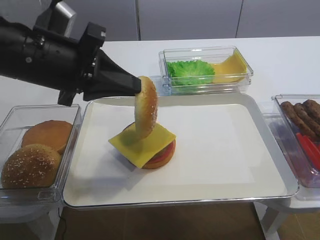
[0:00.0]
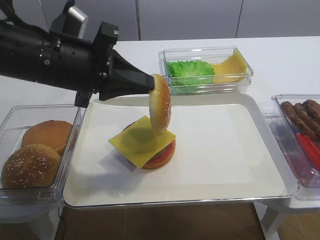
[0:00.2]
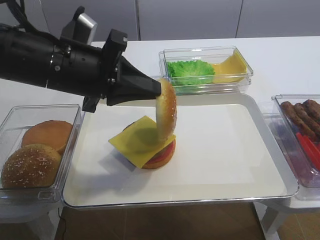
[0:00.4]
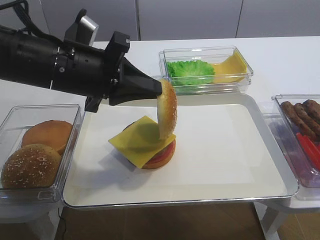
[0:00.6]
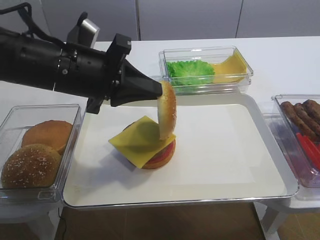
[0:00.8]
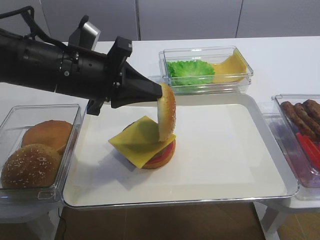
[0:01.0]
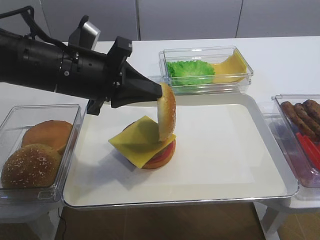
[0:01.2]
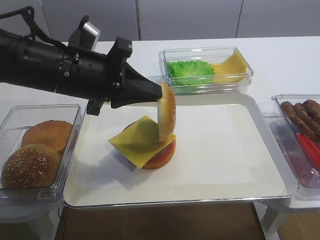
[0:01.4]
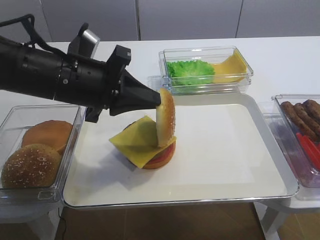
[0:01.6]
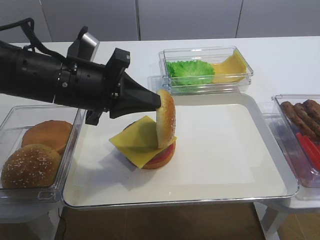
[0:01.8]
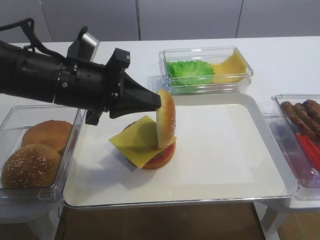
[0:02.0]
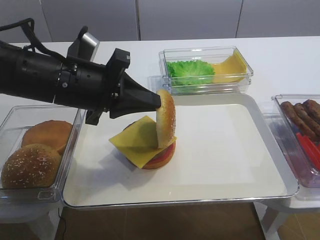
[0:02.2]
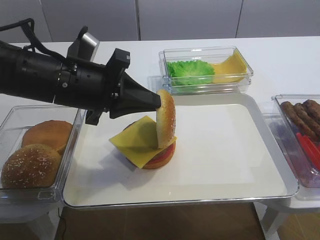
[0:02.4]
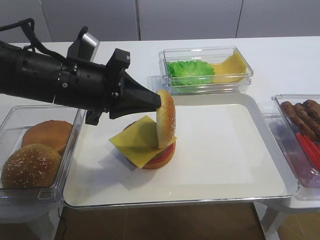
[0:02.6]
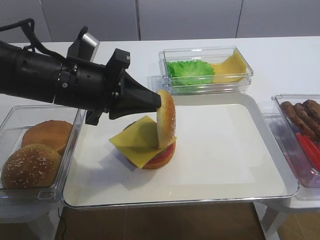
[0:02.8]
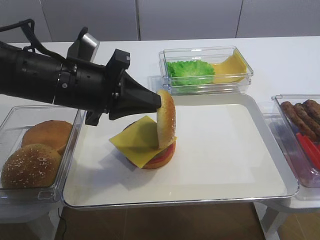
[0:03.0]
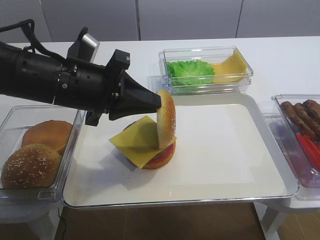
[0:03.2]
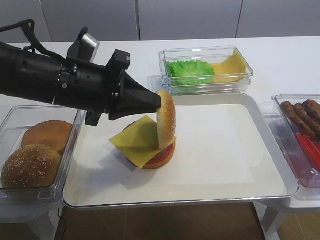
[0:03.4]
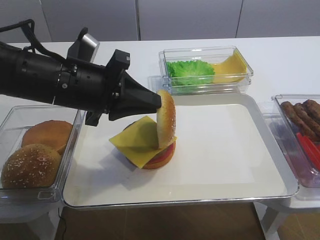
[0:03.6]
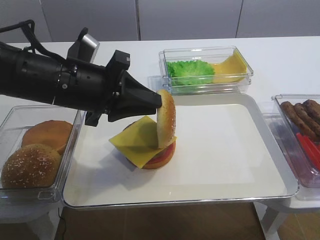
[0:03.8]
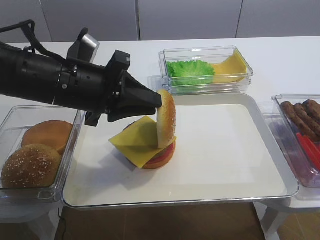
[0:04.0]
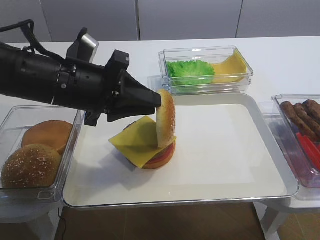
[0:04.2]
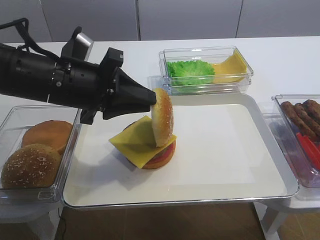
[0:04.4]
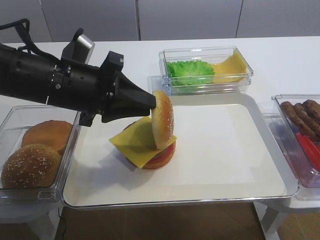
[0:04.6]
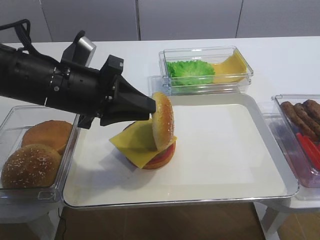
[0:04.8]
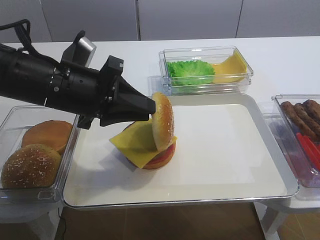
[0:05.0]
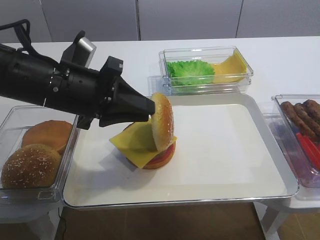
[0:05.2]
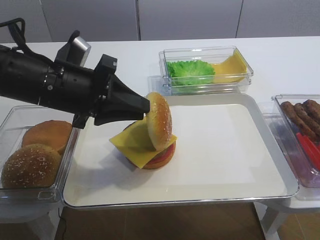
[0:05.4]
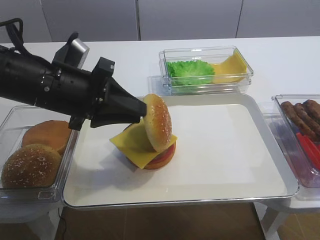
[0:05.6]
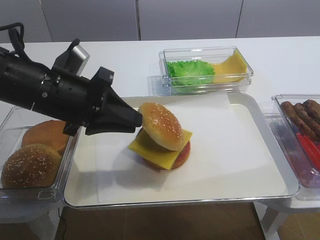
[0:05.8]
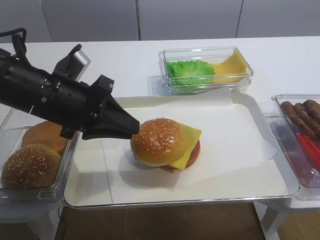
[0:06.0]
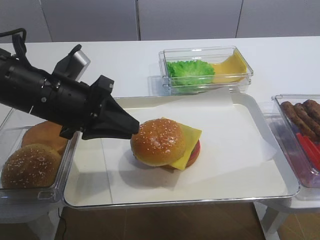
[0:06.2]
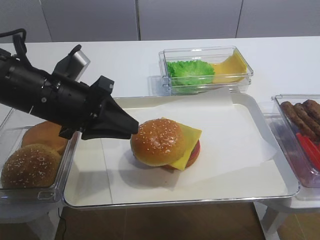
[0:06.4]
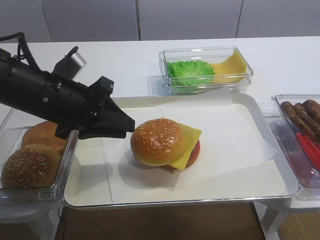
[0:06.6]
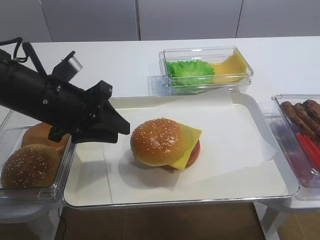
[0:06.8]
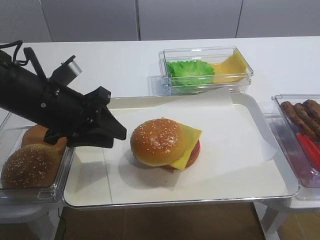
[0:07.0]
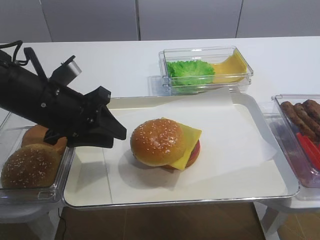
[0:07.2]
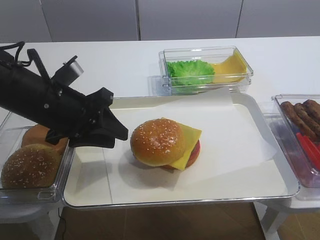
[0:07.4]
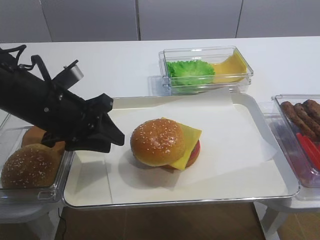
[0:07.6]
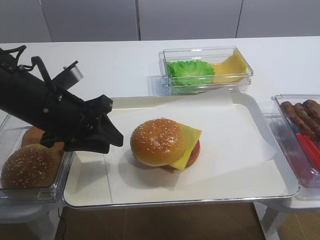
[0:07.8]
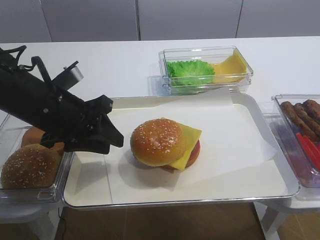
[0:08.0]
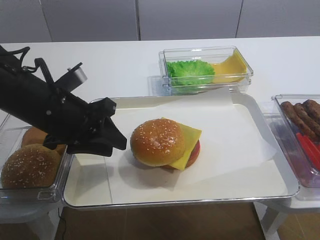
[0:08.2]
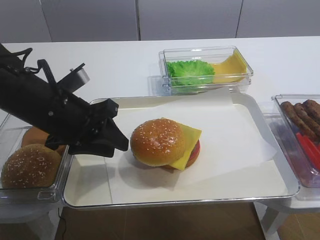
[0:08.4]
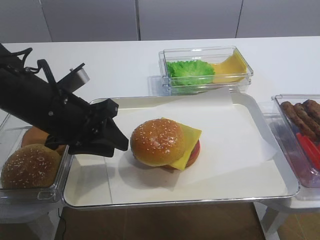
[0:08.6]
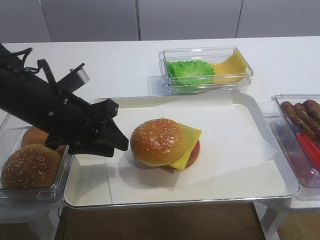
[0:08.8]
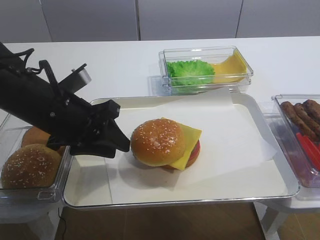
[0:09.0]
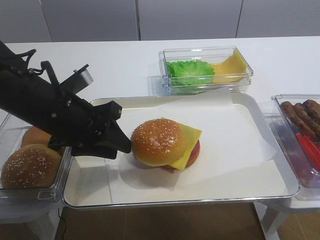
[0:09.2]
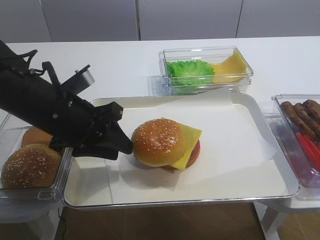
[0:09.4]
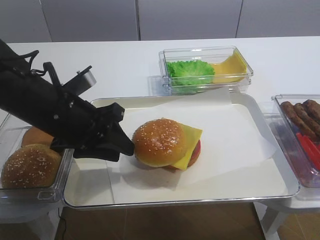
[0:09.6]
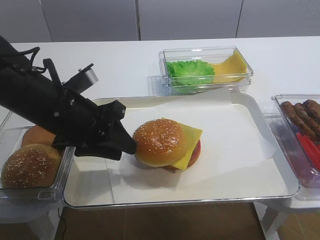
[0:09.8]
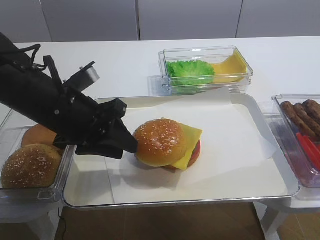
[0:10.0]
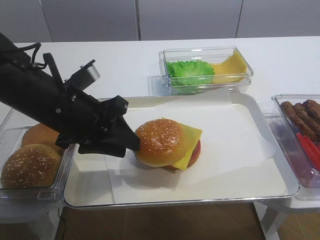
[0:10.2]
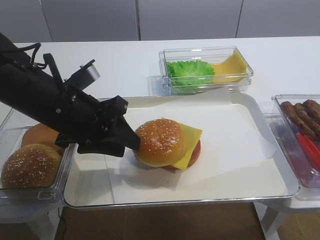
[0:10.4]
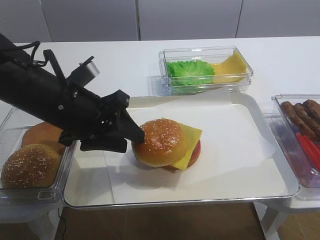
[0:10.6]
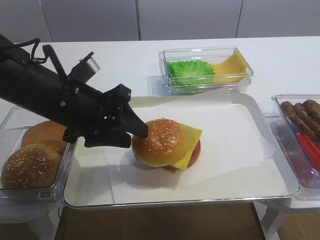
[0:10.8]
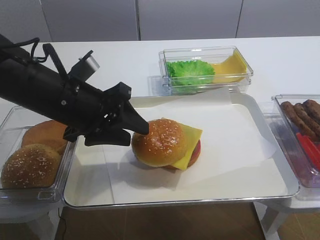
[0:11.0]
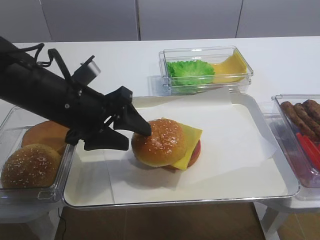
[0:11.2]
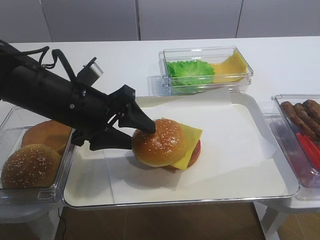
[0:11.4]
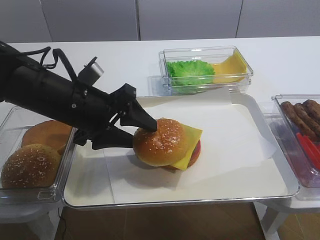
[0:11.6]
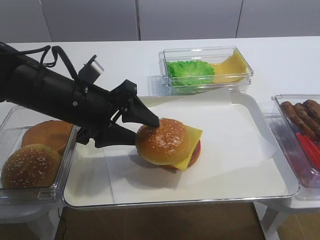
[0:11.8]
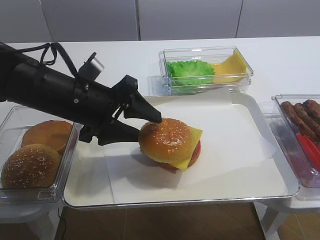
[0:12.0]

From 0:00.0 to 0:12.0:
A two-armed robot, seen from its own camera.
From 0:00.0 to 0:01.6: The grippers make only small movements.
From 0:01.6 to 0:04.4: Neither gripper changes place.
From 0:04.4 to 0:06.0: The grippers make only small movements.
From 0:06.0 to 0:07.6: The grippers move only a little.
From 0:07.6 to 0:09.0: The two grippers keep their place.
From 0:09.0 to 0:10.4: The grippers stay close to where they were, moving slightly.
From 0:10.4 to 0:12.0: The left gripper opens up.

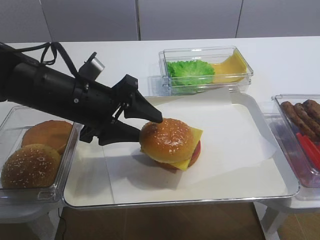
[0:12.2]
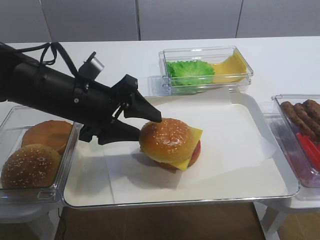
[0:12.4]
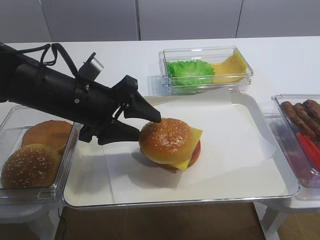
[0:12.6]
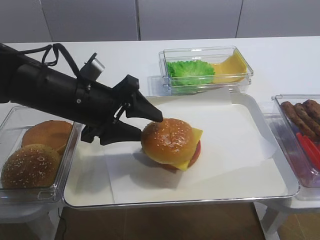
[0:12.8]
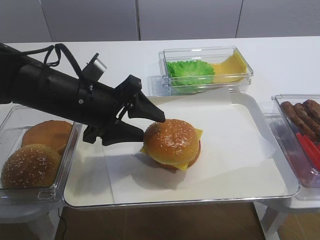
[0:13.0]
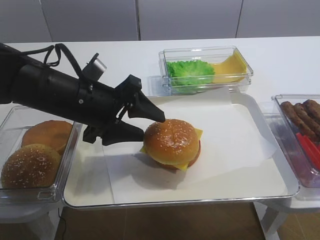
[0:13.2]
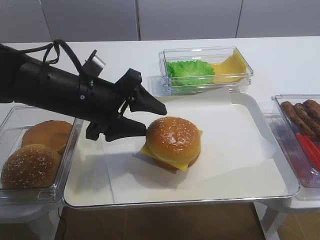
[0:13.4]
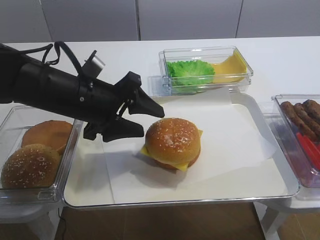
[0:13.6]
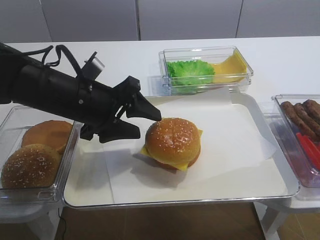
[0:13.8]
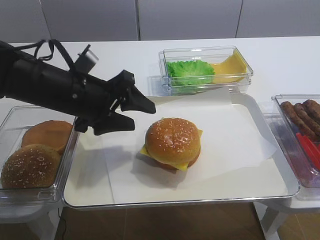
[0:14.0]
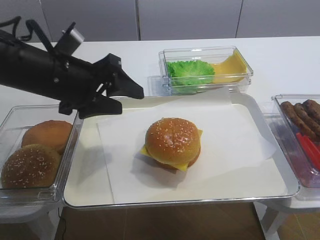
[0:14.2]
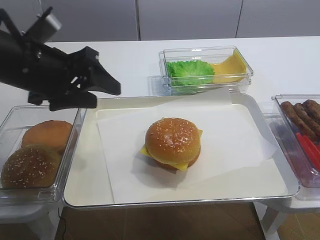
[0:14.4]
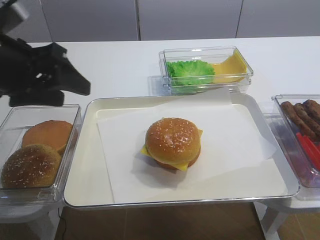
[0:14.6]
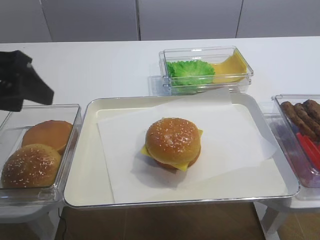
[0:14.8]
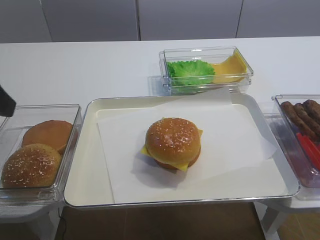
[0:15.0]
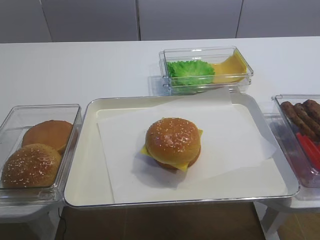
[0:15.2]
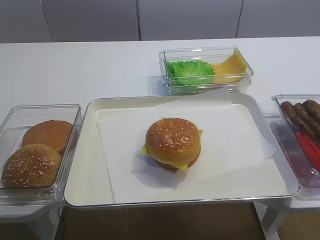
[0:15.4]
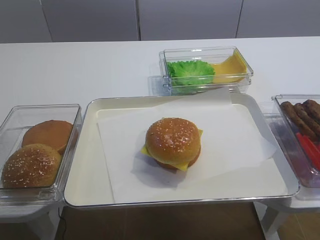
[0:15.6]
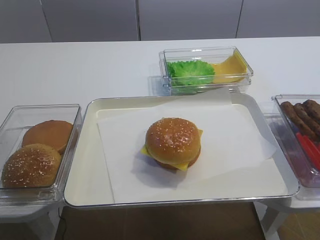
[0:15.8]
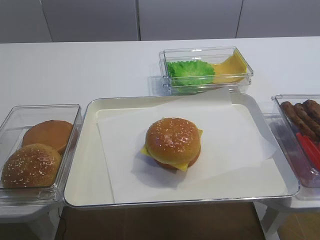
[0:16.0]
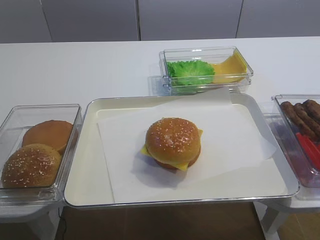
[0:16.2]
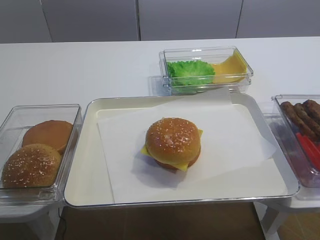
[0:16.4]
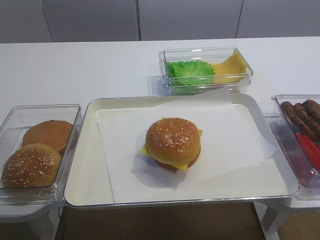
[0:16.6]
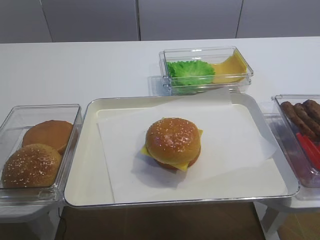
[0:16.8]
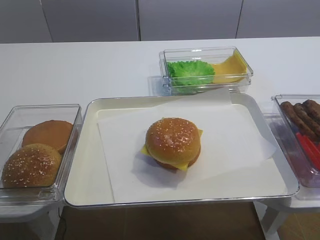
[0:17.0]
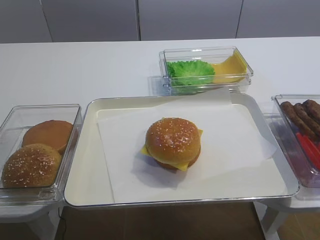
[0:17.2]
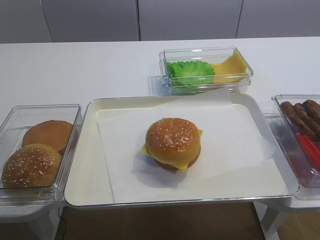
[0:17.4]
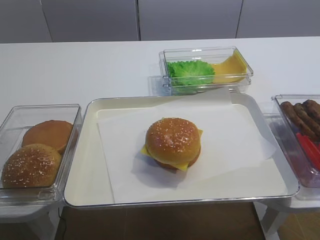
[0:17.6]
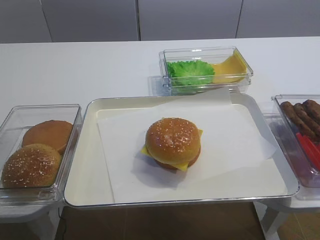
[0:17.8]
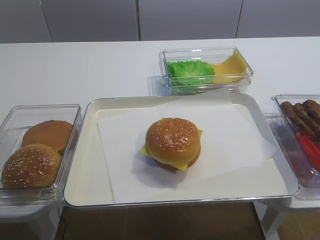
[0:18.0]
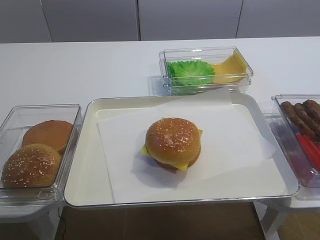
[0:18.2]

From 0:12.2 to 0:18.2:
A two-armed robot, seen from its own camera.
From 0:12.2 to 0:13.8: Both grippers stay put.
From 0:13.8 to 0:15.2: The left gripper travels to the left, upward and backward by roughly 25 cm.

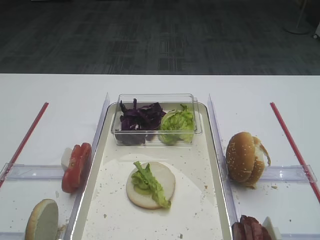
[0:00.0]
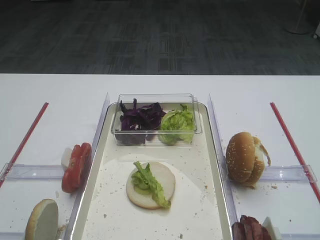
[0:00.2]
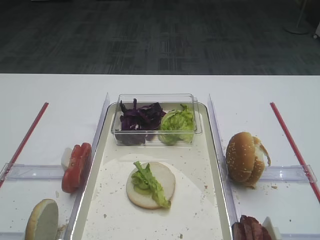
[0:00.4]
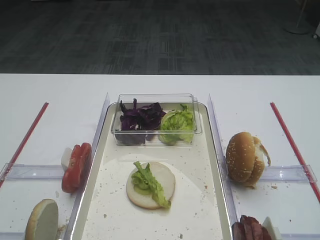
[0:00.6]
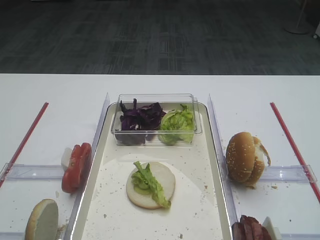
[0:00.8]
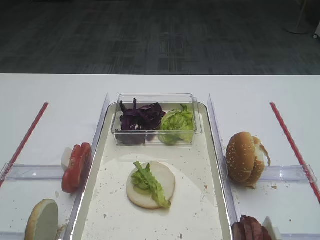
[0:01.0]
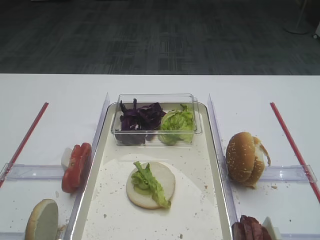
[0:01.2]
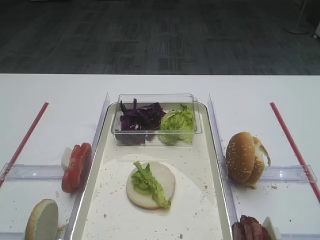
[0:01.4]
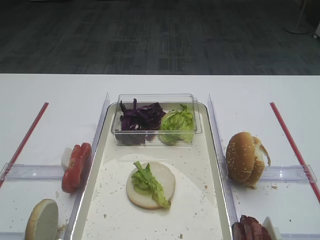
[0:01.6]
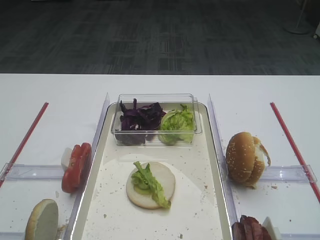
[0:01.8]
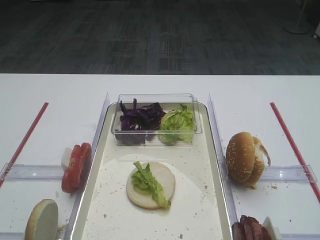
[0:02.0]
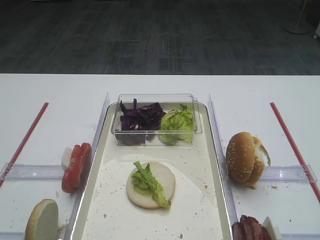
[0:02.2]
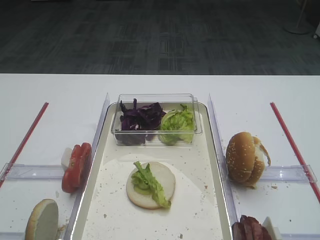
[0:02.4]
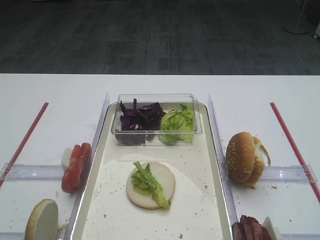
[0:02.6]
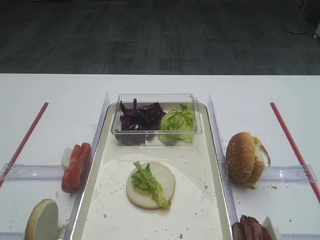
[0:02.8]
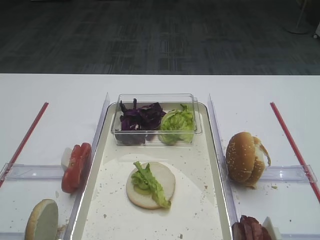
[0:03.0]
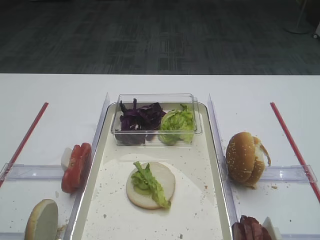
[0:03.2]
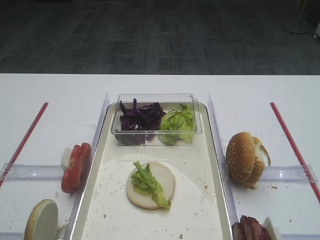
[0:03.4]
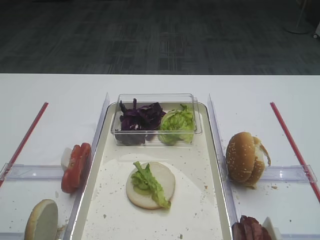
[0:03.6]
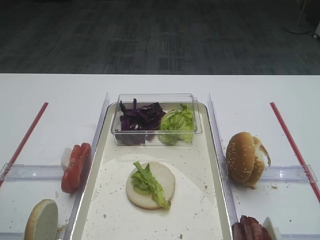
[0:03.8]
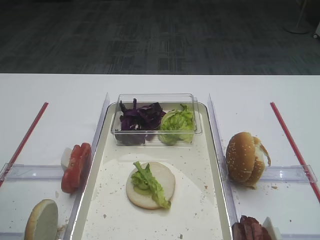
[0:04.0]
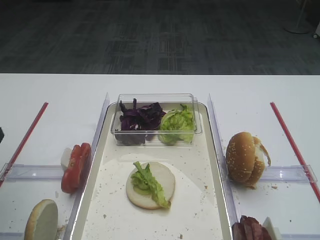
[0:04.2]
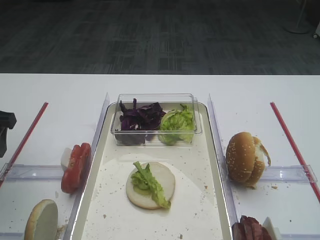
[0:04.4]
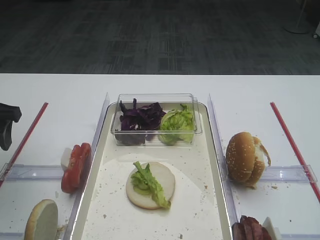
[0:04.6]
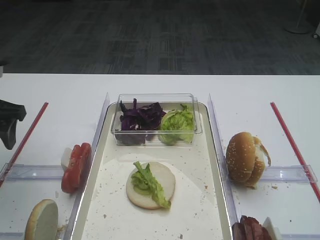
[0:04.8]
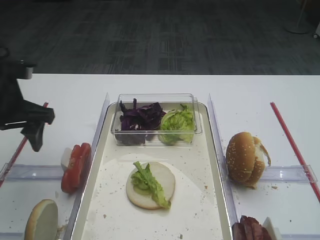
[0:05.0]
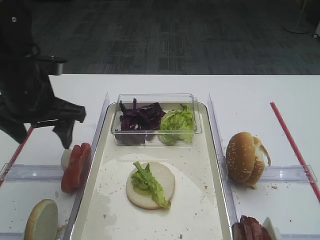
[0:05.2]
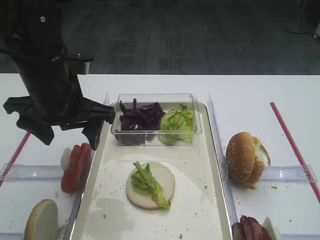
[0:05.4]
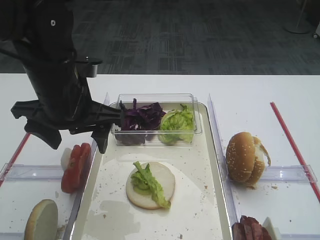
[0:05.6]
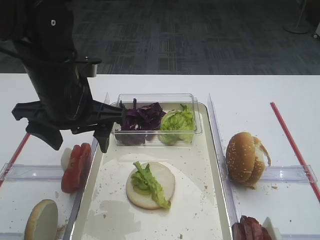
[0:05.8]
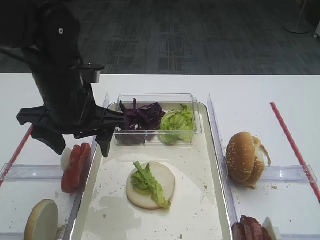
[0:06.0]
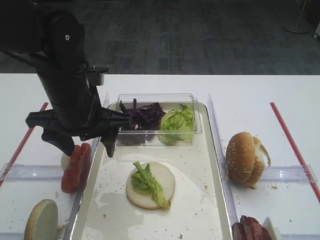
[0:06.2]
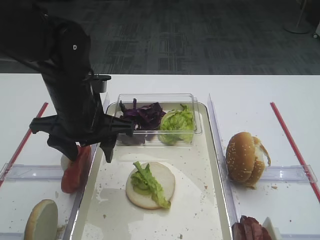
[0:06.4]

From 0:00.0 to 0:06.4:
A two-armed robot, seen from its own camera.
From 0:03.2 to 0:04.8: The left gripper goes roughly 20 cm forward.
From 0:04.8 to 0:06.4: The left gripper heads to the right, covering some 15 cm.
